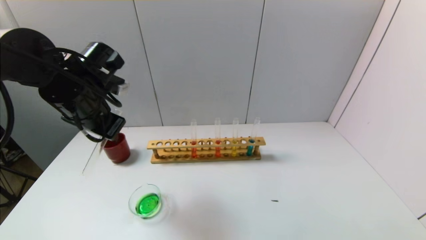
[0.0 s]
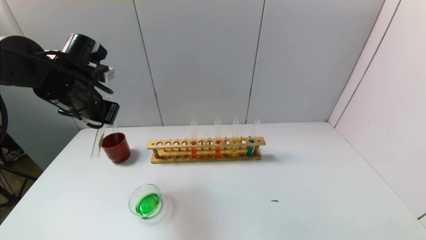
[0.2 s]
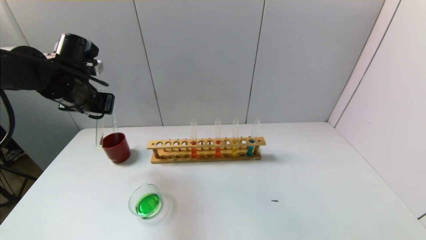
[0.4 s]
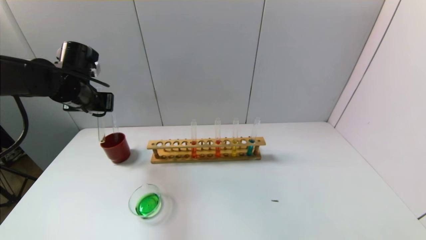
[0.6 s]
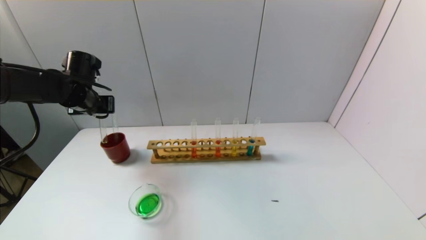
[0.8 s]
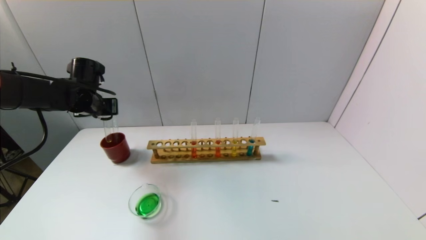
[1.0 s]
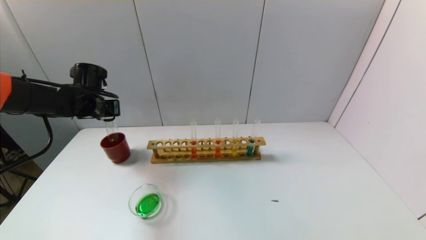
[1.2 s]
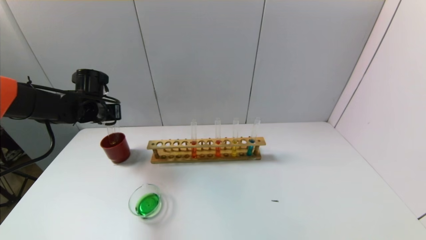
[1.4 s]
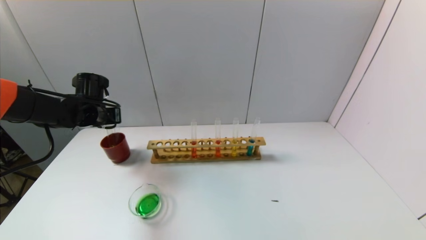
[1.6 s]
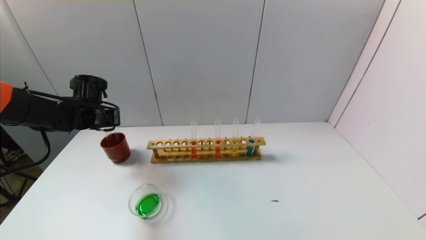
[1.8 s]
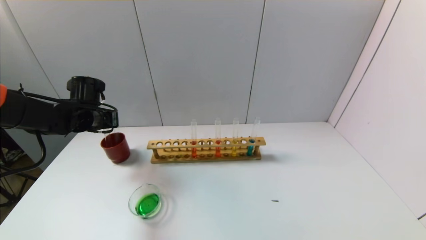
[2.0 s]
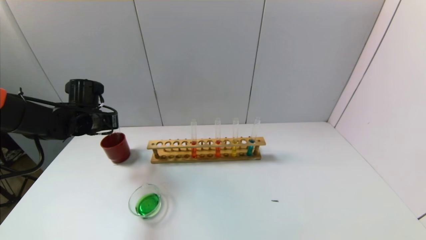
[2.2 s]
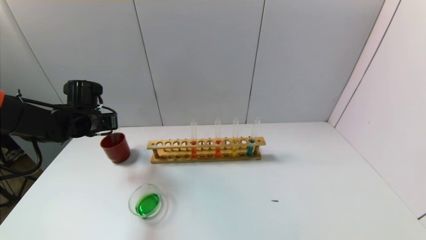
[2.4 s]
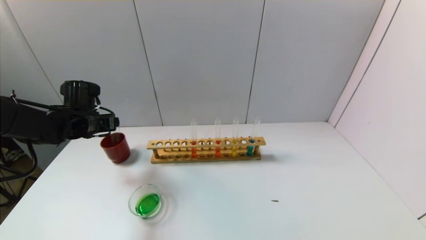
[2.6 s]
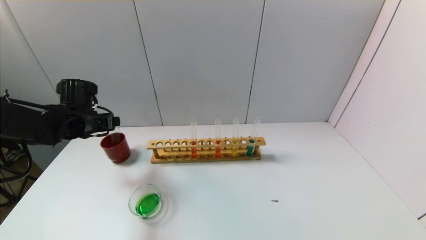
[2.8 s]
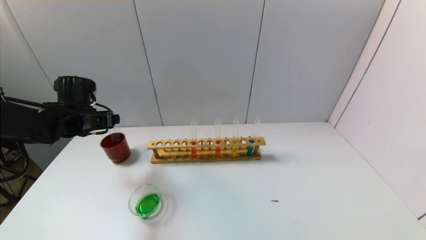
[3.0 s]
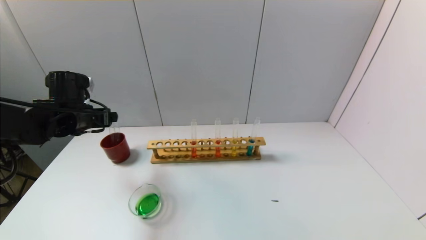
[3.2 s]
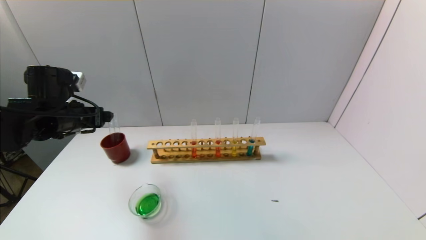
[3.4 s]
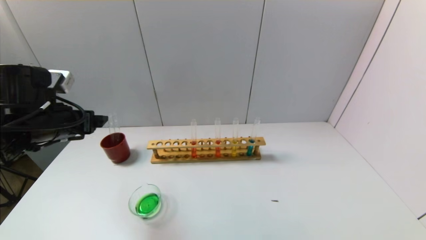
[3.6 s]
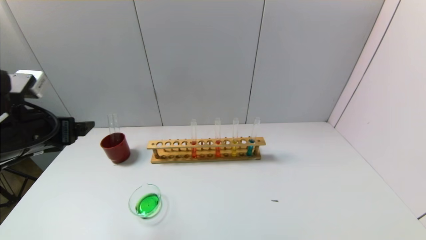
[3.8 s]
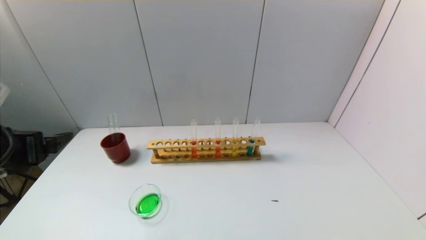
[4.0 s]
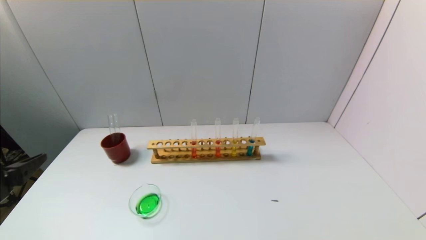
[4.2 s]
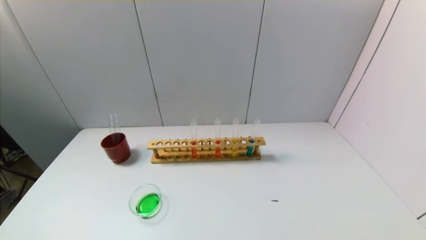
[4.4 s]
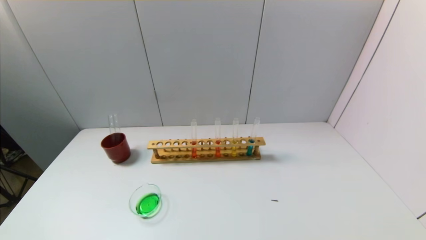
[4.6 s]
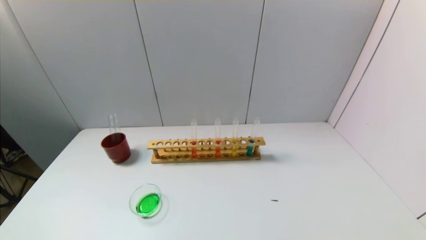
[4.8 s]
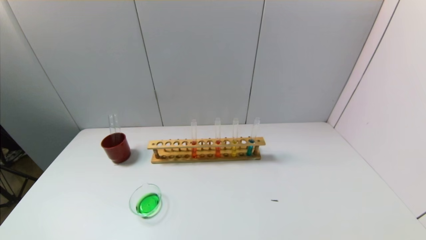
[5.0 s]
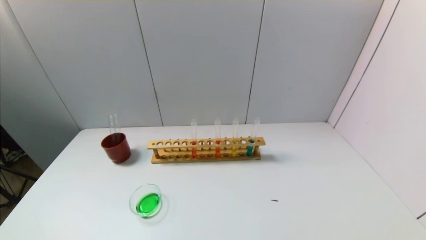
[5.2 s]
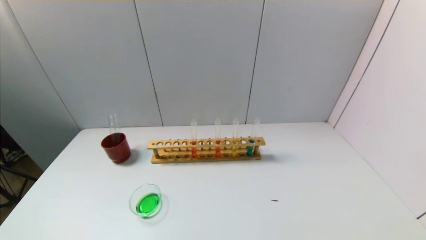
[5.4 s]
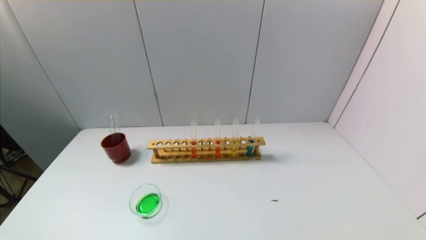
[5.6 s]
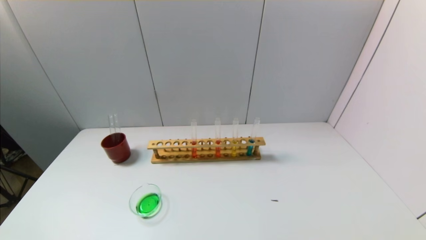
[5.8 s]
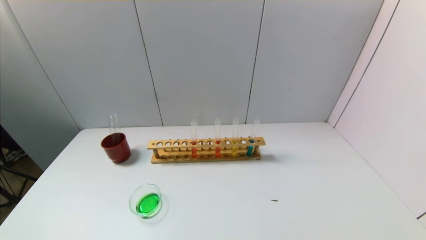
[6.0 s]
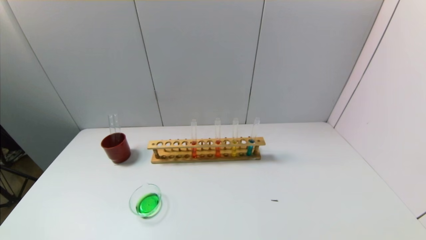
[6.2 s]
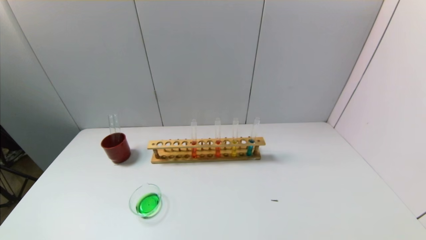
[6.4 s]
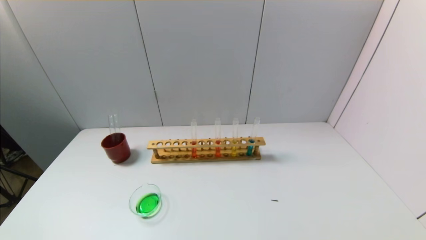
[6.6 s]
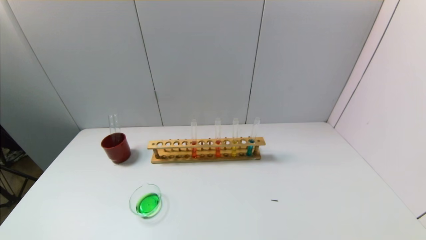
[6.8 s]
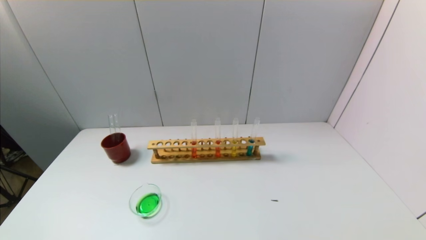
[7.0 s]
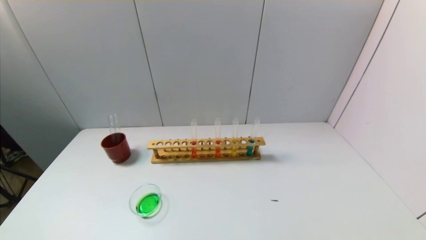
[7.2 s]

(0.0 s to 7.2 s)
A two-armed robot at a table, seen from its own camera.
Task of the whole recording: pick up the test tube with yellow pigment and the test tube with blue pigment by grippers and pour them into the beaker.
Step, 0.0 s - 2.6 s: Place the test tube into the brown cup with the left gripper.
0.0 s - 1.4 s: The left gripper moves forward, downward and to the left, roughly 15 cm.
1.4 s - 2.8 s: The left gripper opens.
2.8 s - 4.4 s: The left gripper heads backward, covering roughly 35 cm.
5.8 s - 7.2 s: The two grippers keep their place.
